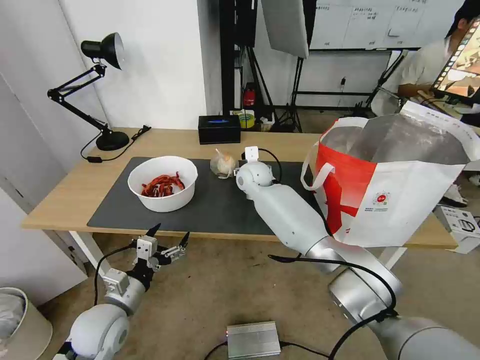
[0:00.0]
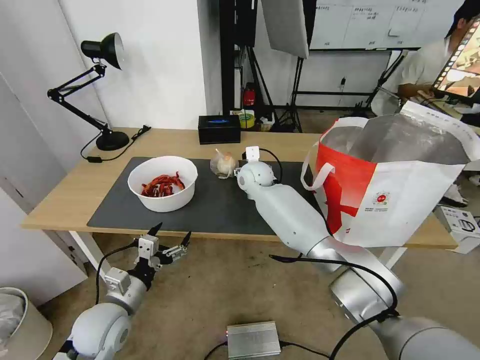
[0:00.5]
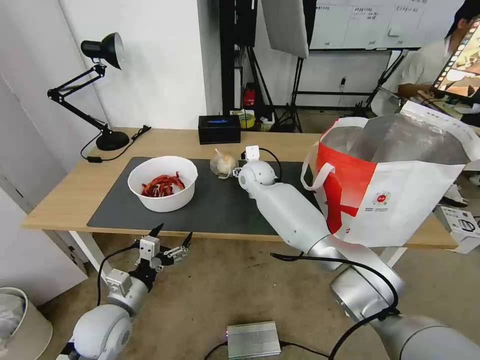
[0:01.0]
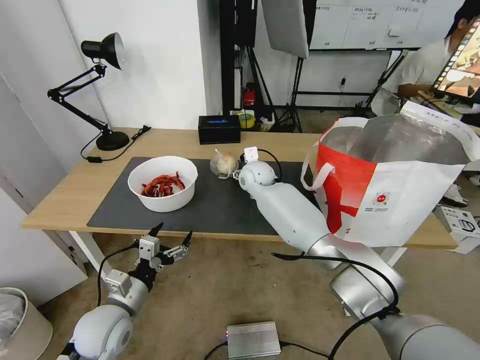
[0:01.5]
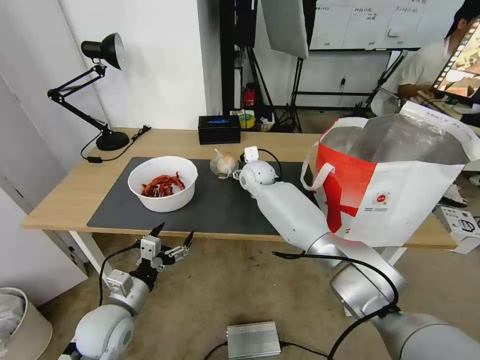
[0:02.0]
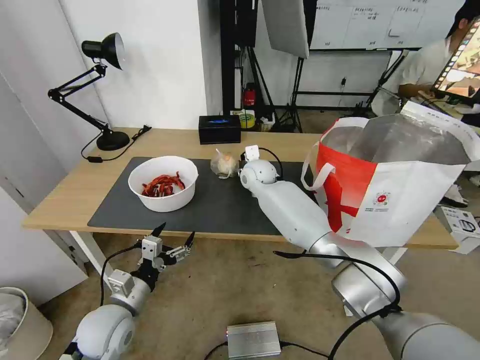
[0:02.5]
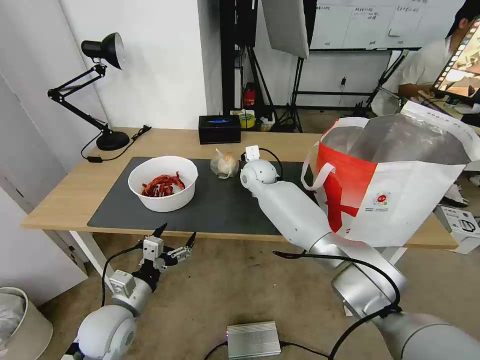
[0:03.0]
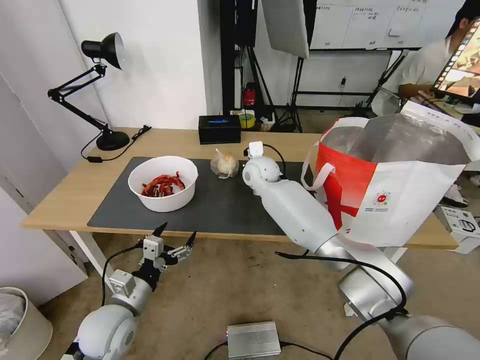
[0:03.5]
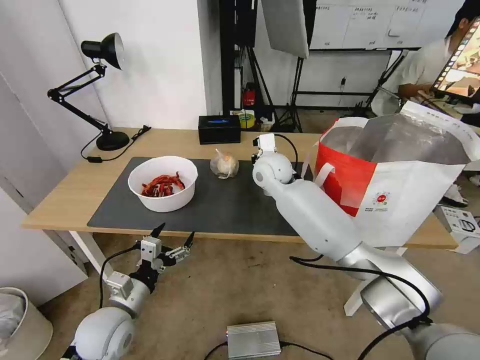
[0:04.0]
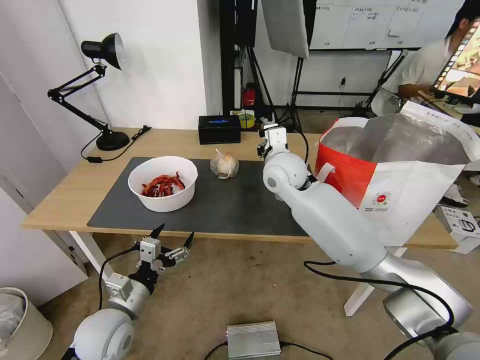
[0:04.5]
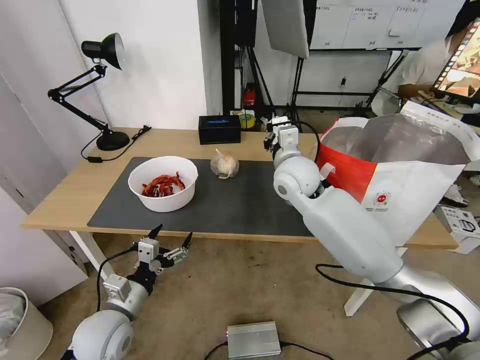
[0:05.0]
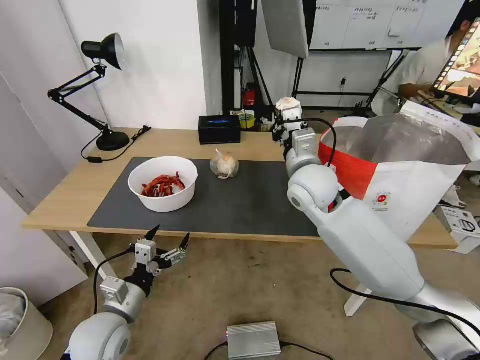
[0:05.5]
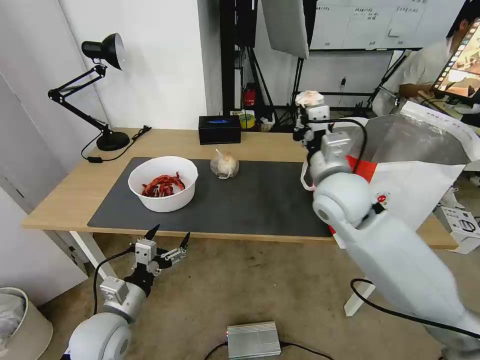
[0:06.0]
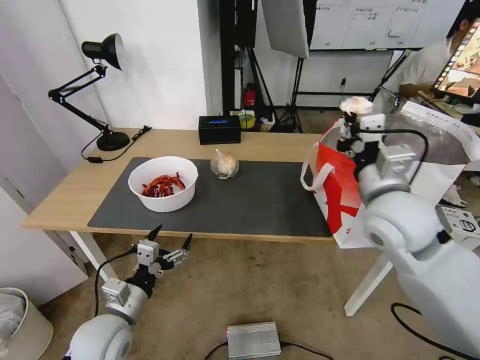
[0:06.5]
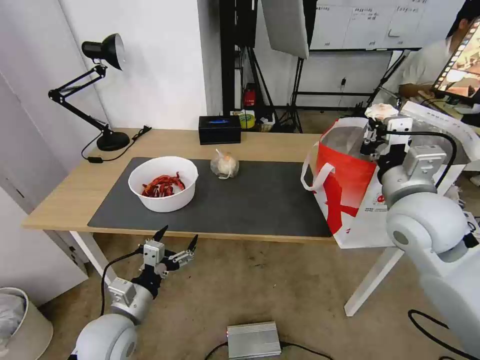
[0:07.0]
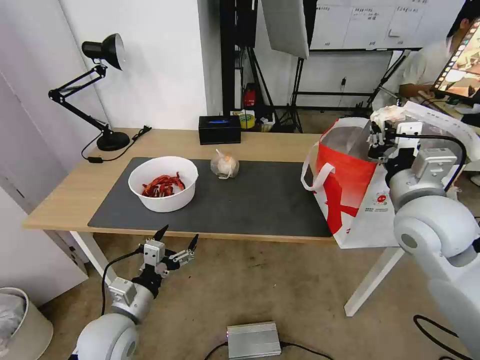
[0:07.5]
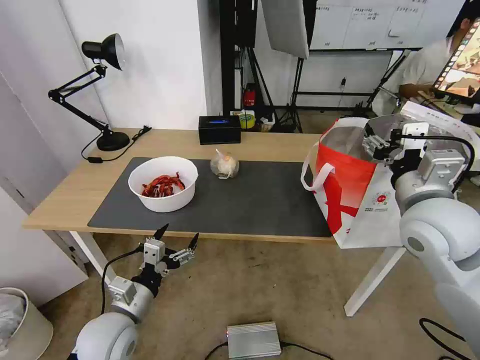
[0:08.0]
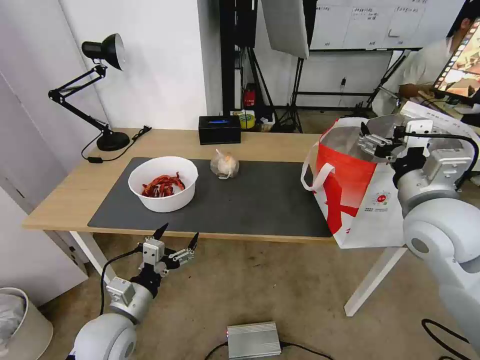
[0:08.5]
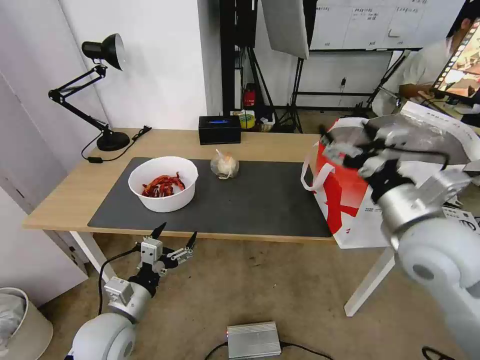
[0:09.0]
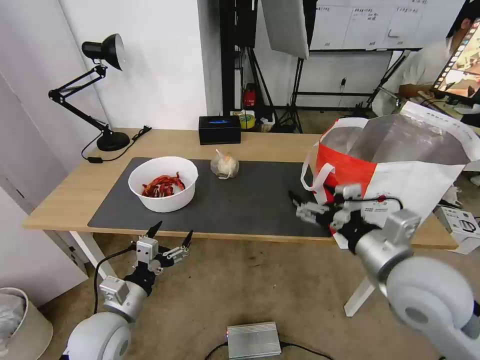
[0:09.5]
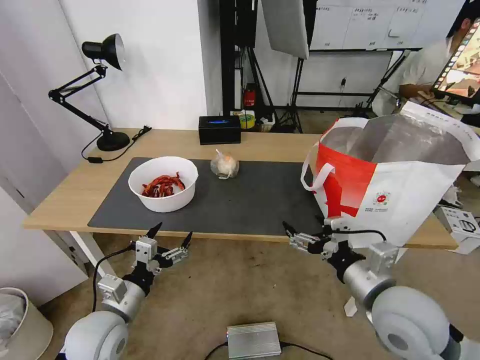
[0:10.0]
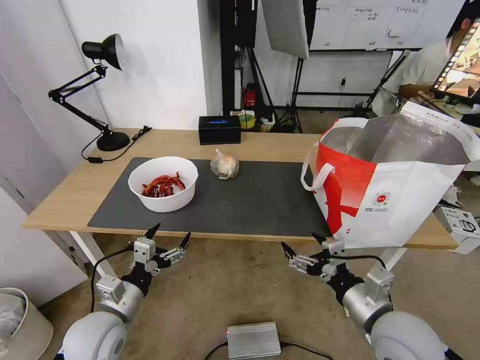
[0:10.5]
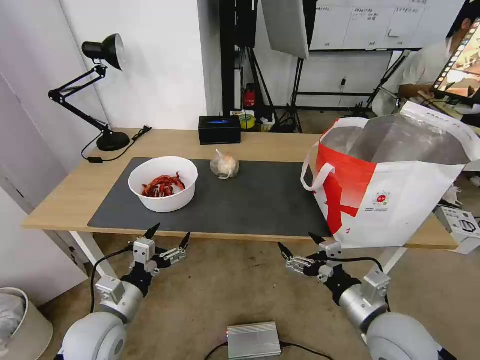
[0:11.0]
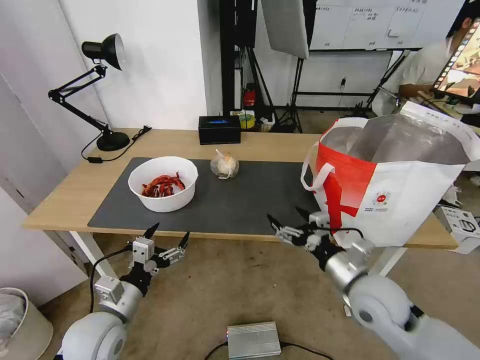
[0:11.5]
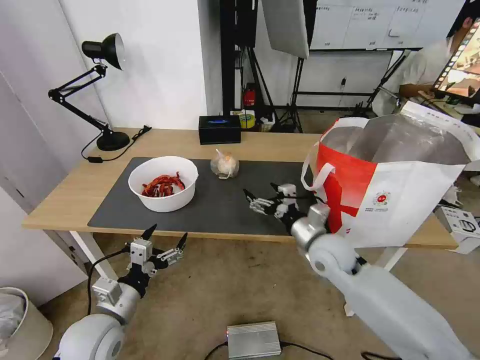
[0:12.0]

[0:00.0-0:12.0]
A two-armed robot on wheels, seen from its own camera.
Task of the whole recording: Pick up the trash from the table and place it into the takeout bag.
0:00.0 to 0:02.0: The grippers move only a little.
0:02.0 to 0:04.0: The right gripper travels upward and backward by some 10 cm, and closes.
0:04.0 to 0:06.0: The right gripper shifts about 20 cm backward and to the right.
0:06.0 to 0:08.0: The right gripper moves to the right and backward, roughly 15 cm, and opens up.
0:08.0 to 0:10.0: The right gripper heads downward and backward, covering roughly 15 cm.
0:10.0 to 0:12.0: The right gripper travels forward and downward by about 15 cm.

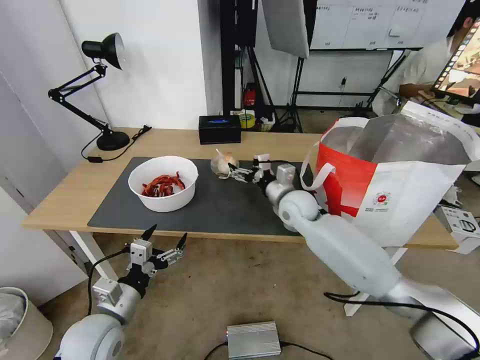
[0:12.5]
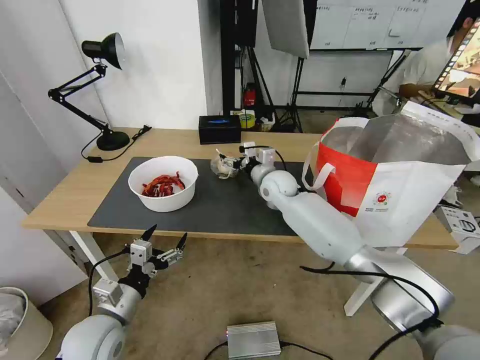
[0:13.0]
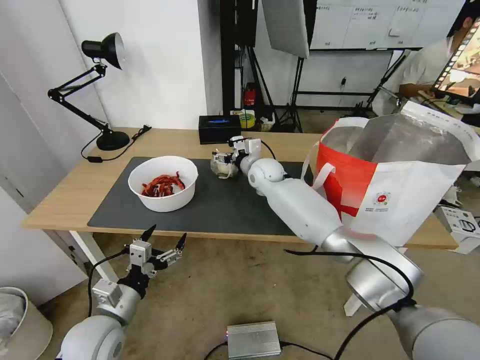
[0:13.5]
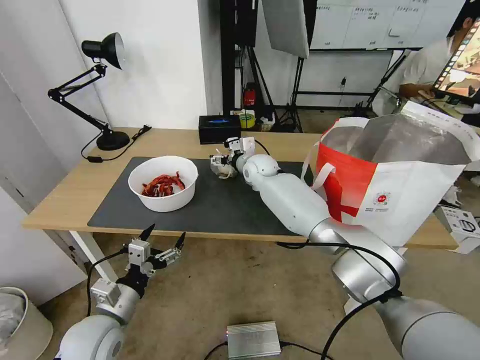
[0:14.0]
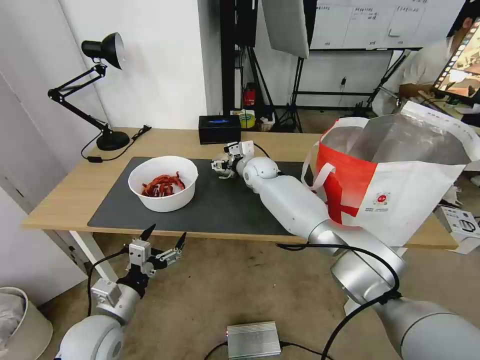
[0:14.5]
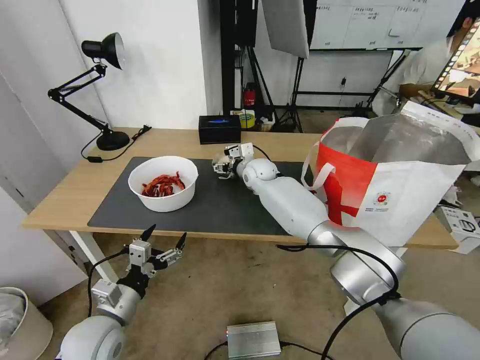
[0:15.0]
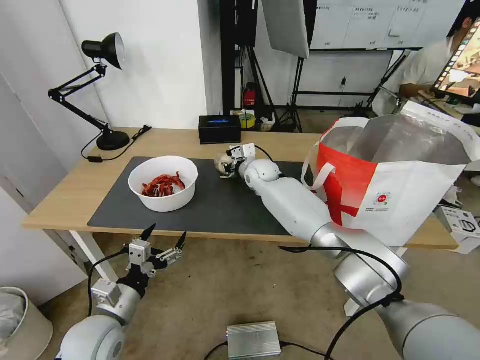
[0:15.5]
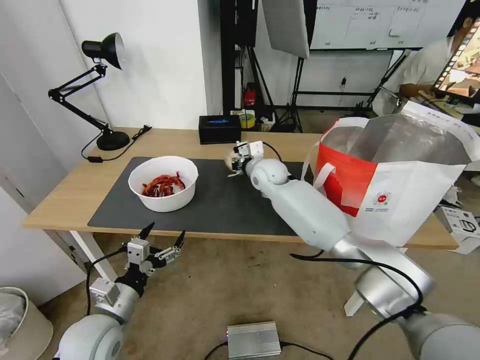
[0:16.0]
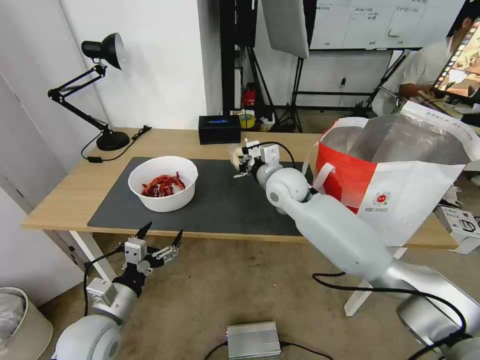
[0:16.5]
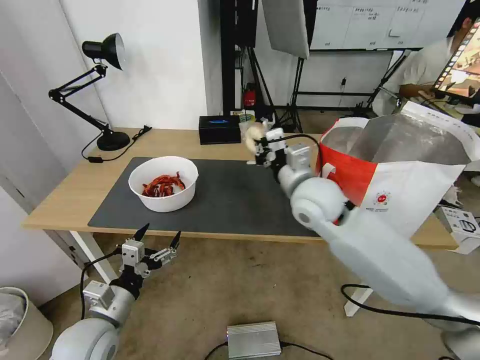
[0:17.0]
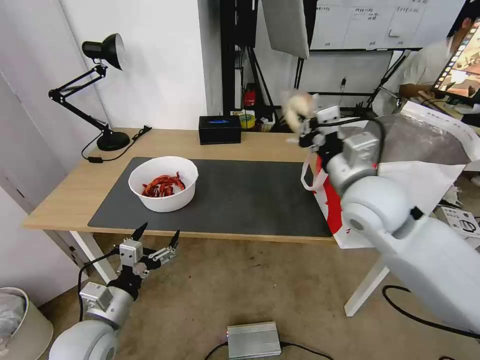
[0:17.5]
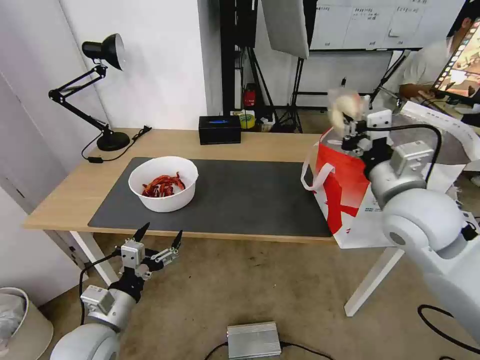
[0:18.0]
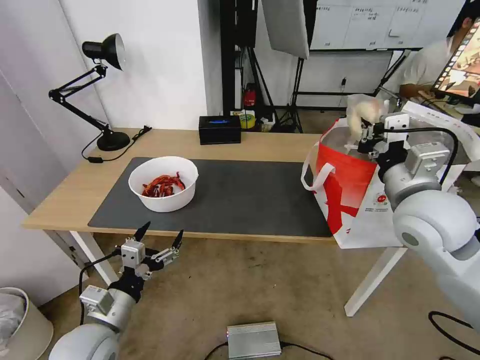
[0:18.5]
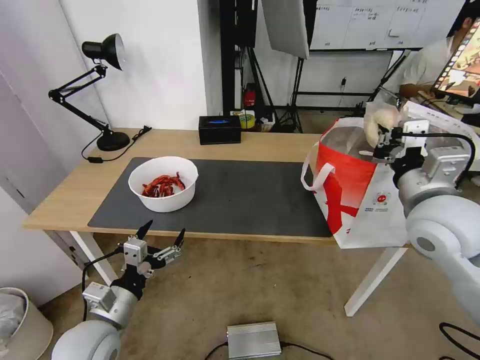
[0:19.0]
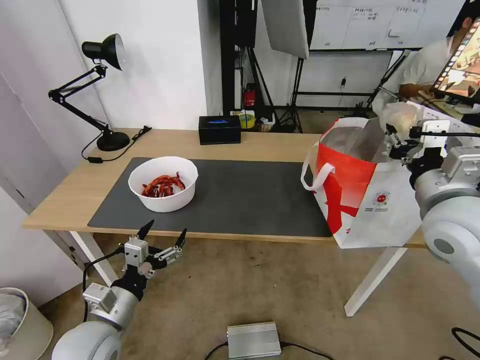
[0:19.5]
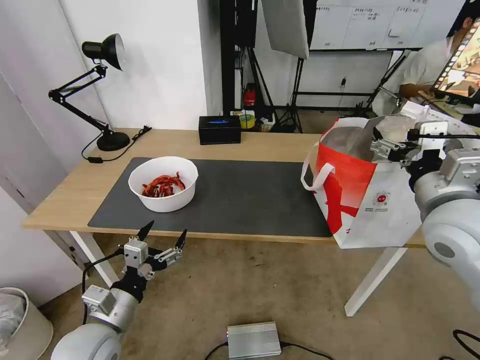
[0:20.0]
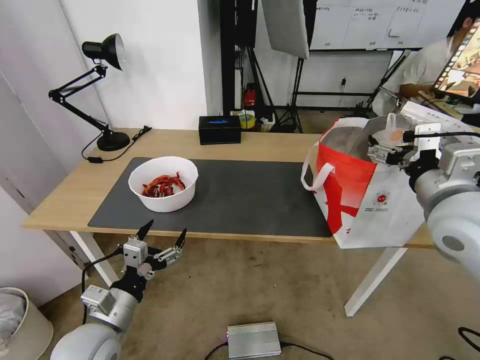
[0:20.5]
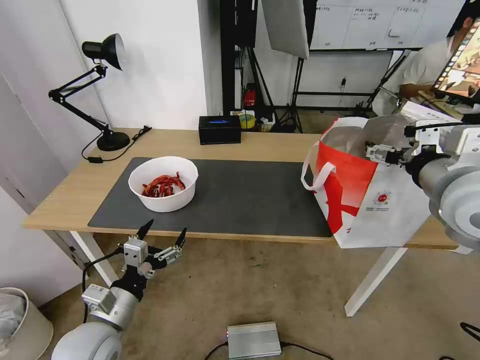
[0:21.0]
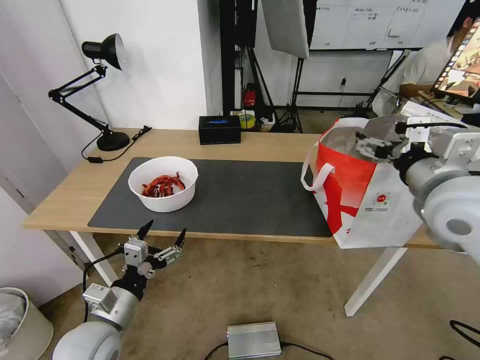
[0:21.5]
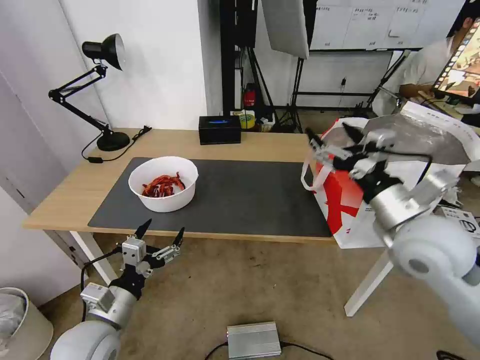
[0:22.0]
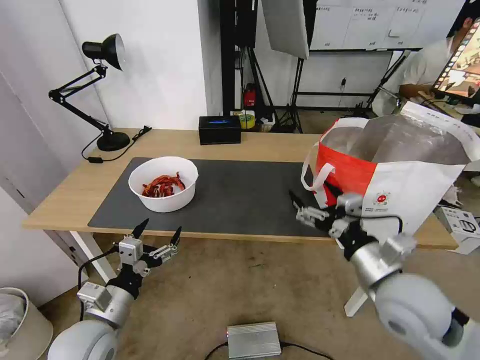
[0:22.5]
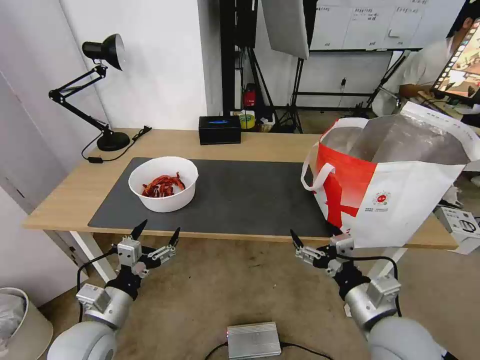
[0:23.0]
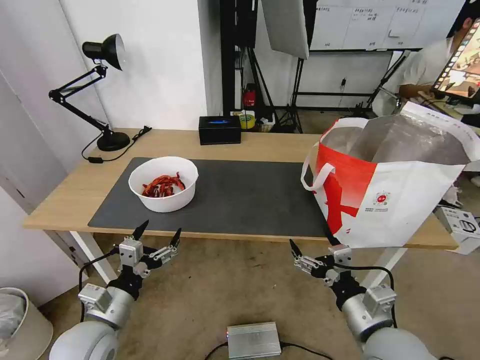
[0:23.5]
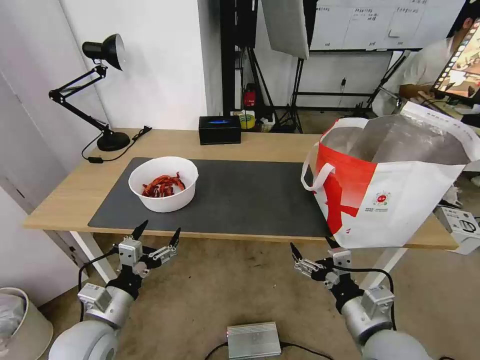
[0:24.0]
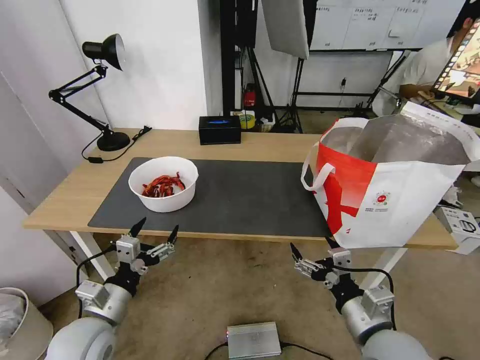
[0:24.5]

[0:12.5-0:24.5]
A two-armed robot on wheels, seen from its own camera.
Task of the whole recording: Pick up the trash from the table and place it into the takeout bag.
0:12.5 to 0:14.5: The right gripper moves forward and to the left, roughly 15 cm.
0:14.5 to 0:16.5: The right gripper moves backward and upward, roughly 15 cm, and closes up.
0:16.5 to 0:18.5: The right gripper moves to the right, backward and upward, about 25 cm.
0:18.5 to 0:20.5: The right gripper opens its fingers.
0:20.5 to 0:22.5: The right gripper goes about 15 cm downward, backward and to the left.
0:22.5 to 0:24.5: The right gripper is displaced downward and backward by roughly 10 cm.

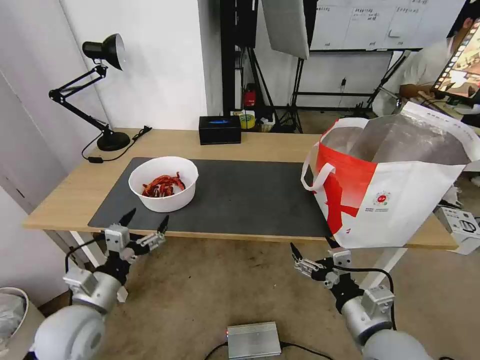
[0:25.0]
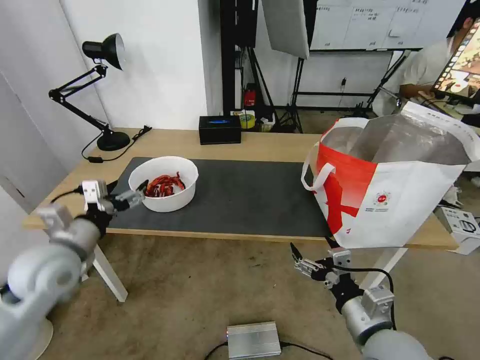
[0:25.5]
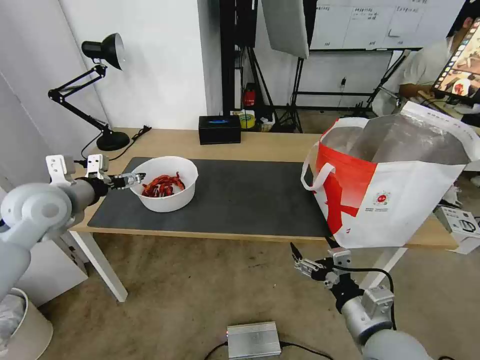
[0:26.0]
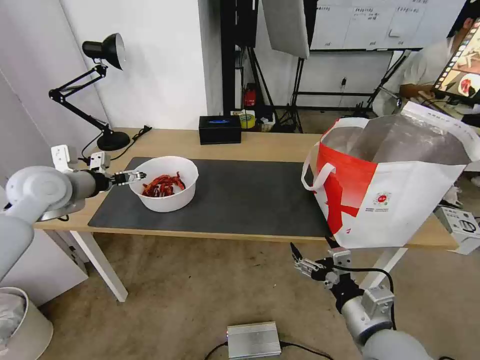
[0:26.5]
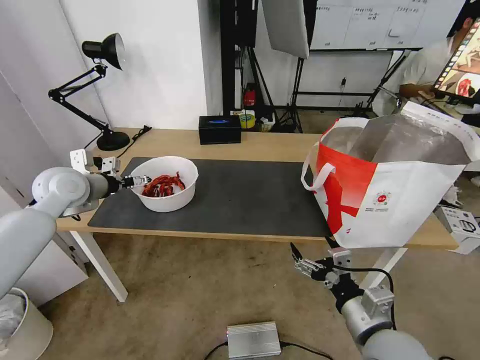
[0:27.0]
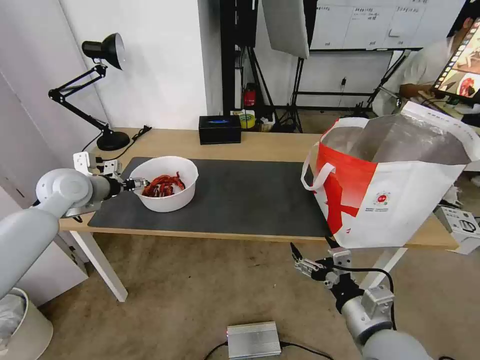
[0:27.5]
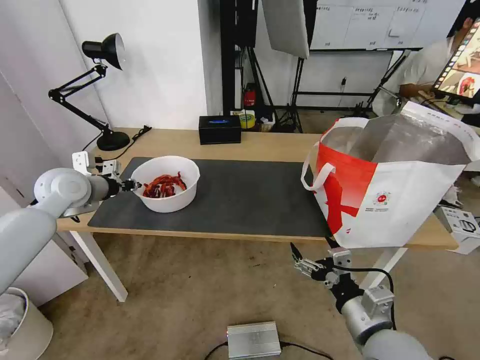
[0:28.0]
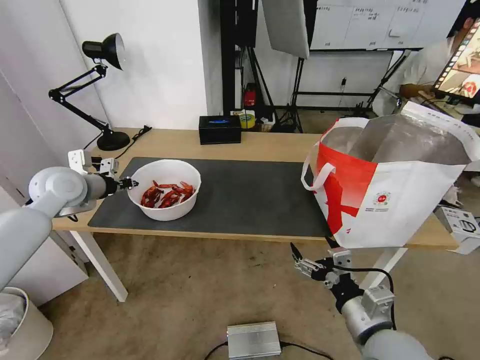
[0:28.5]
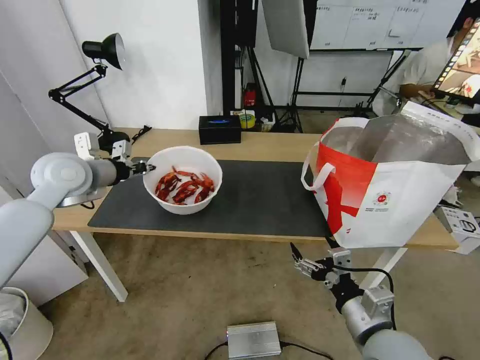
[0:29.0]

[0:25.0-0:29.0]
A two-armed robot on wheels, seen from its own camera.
Task of the whole recording: Pick up the trash from the table and place it into the takeout bag.
0:25.0 to 0:27.0: The left gripper shifts approximately 25 cm forward and upward.
0:27.0 to 0:29.0: The left gripper changes place by some 5 cm, and closes its fingers.
